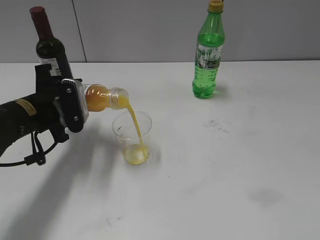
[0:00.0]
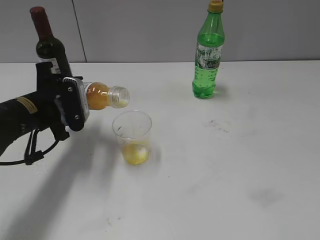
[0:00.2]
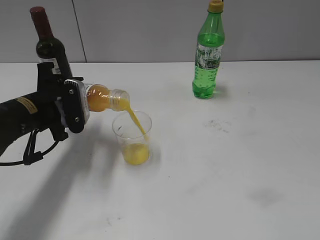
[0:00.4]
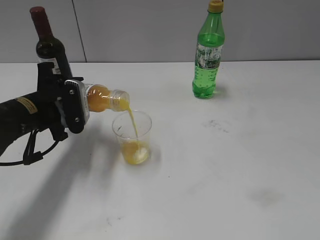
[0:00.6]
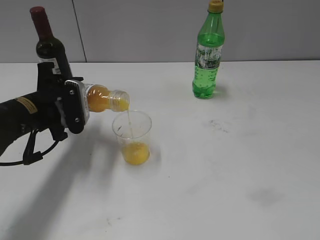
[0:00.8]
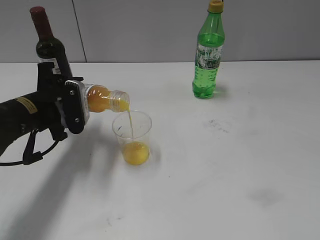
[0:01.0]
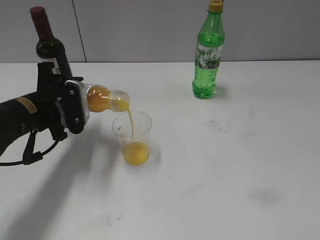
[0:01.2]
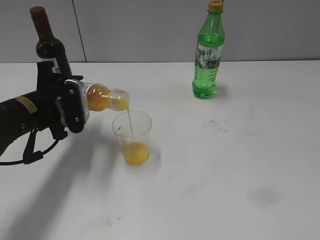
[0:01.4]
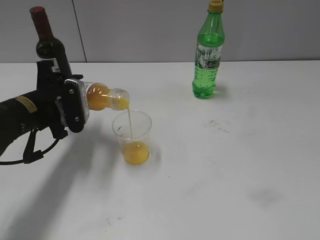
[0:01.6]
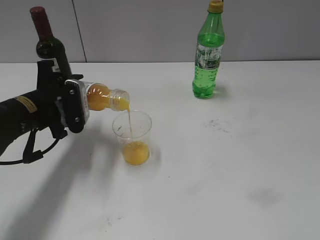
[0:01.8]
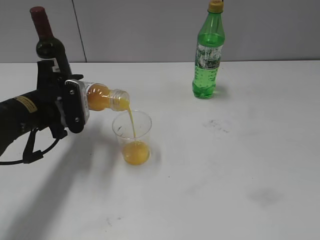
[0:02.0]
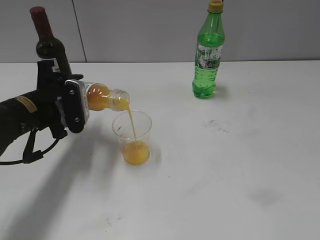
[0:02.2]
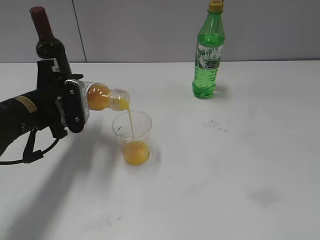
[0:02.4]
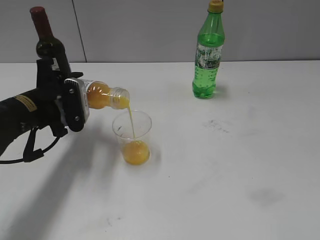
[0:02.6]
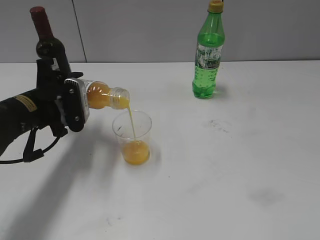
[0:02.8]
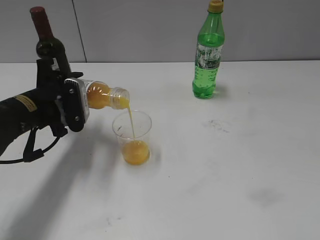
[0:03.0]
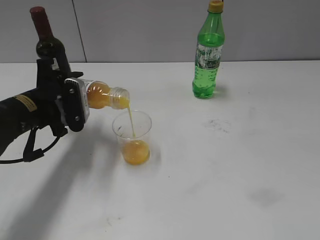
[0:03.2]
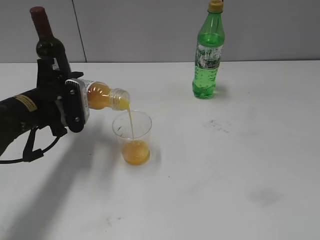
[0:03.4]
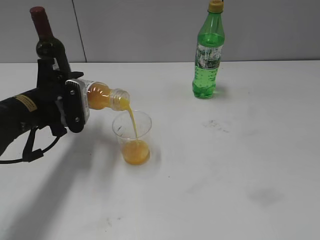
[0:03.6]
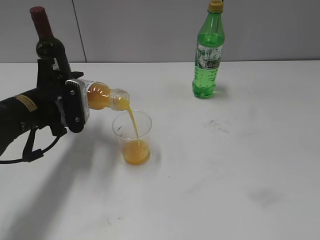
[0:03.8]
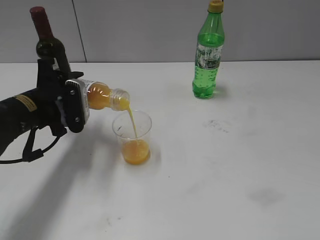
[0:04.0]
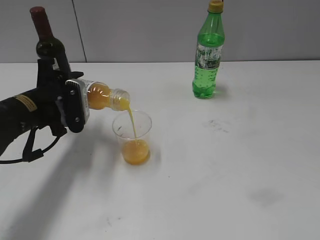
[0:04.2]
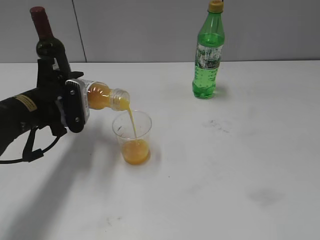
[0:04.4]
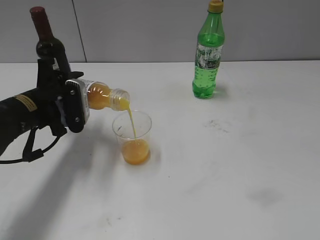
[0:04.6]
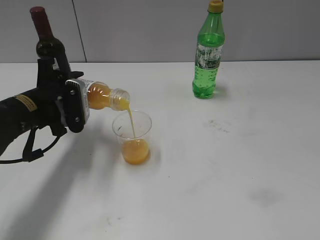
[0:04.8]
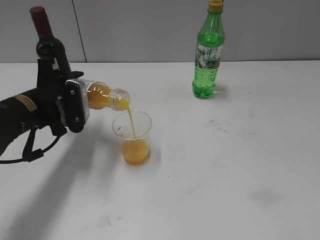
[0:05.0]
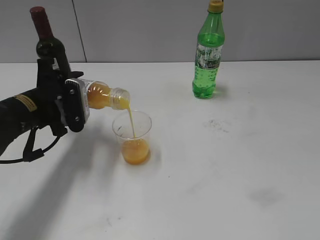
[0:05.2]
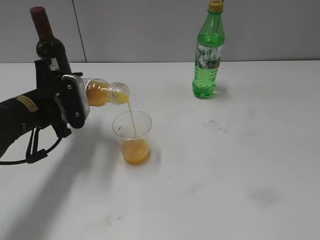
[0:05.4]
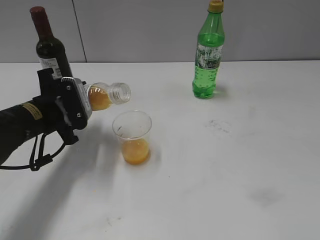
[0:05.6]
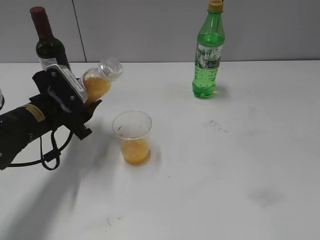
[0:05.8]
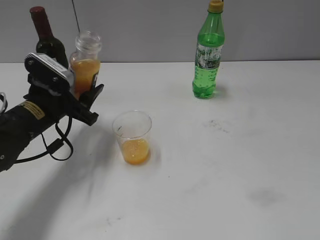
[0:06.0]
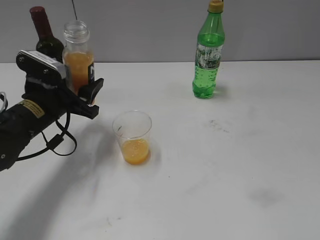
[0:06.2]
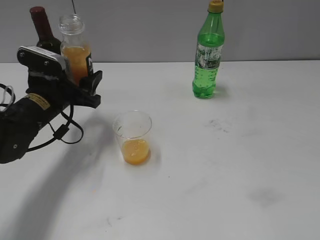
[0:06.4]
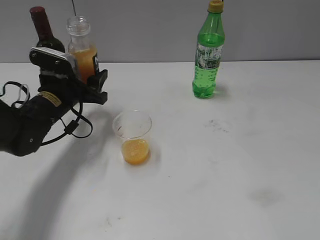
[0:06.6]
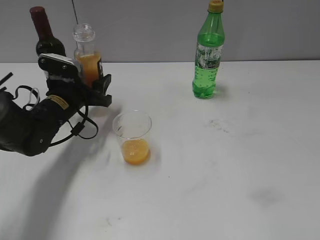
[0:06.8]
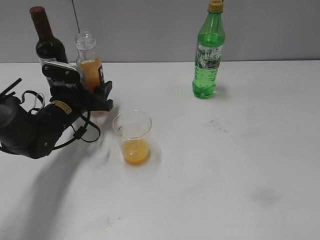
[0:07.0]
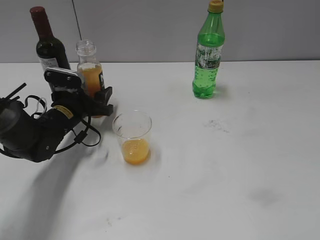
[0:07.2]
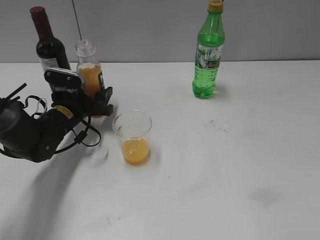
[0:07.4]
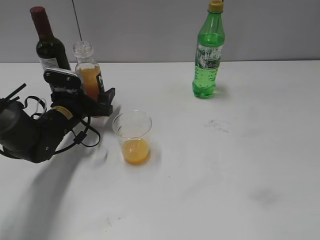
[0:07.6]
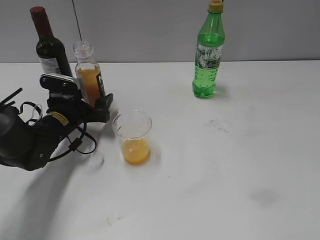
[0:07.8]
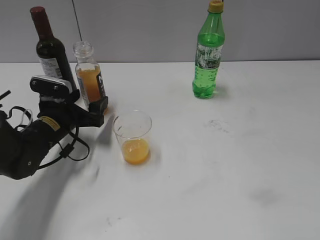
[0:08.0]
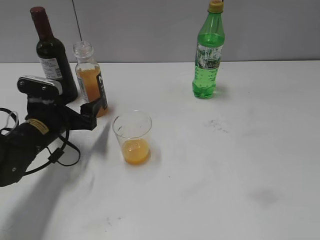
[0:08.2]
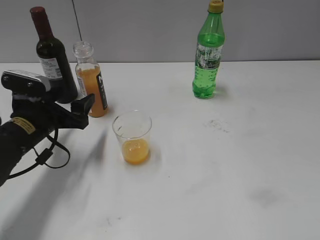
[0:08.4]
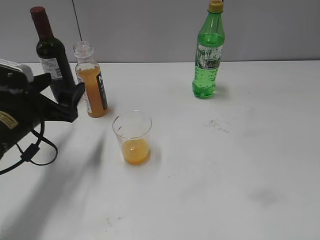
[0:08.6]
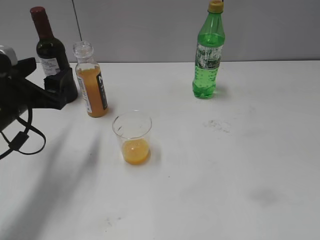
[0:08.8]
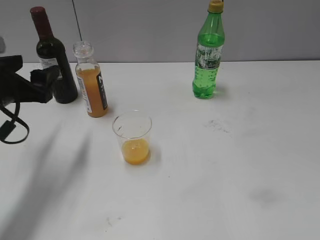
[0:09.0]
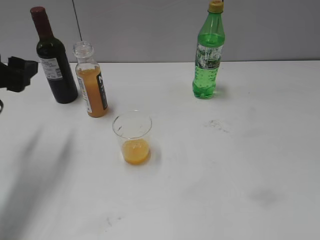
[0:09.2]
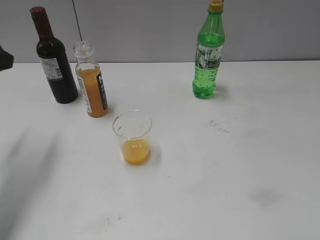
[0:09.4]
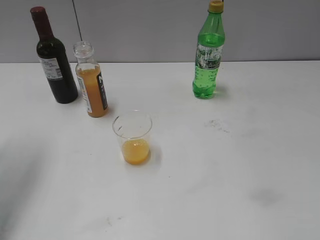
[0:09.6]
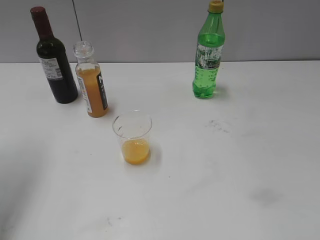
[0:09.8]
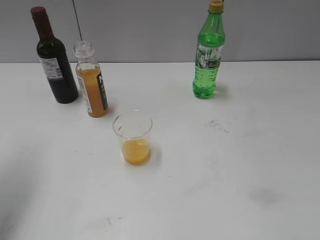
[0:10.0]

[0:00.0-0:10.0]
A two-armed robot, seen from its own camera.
Step, 0.0 to 5.6 s: Pour the orange juice from bottle to cup with left gripper.
Step, 5.8 to 7.4 s: Place the orange juice bottle on the table with left gripper.
0.0 to 1.4 s: The two grippers keep their place.
1.4 to 4.2 s: The two grippers keep their place.
5.8 to 7.2 s: The left gripper moves forward and downward, some 10 cm.
7.2 to 8.6 s: The left gripper travels backward and upward by roughly 15 cm, and opens.
8.6 to 10.0 s: The left gripper moves upward and to the left, roughly 20 cm.

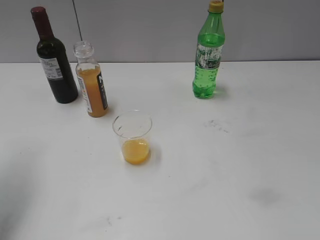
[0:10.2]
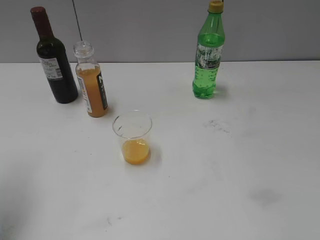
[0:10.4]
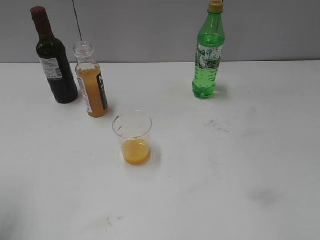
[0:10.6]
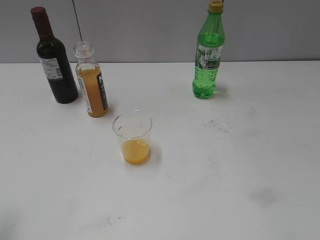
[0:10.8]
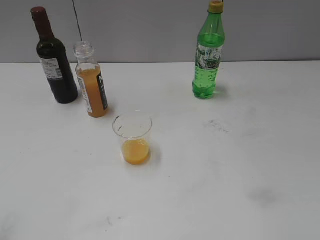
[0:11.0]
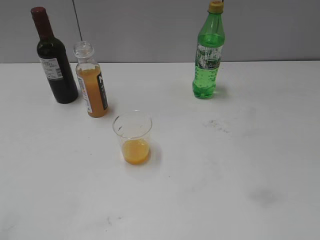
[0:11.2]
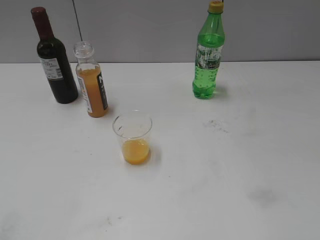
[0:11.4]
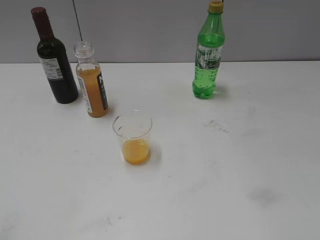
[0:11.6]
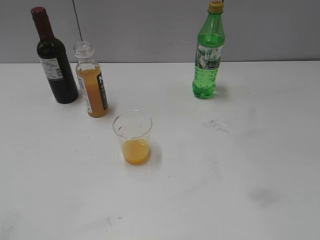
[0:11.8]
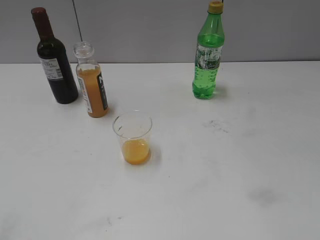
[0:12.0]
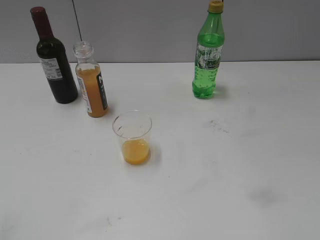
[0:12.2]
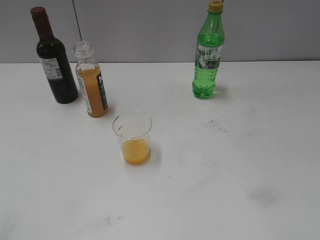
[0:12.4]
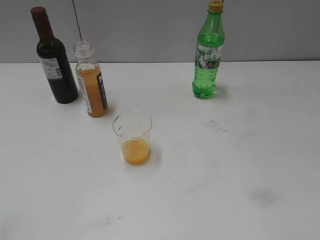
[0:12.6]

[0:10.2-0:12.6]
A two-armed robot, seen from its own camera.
10.2 to 11.4 s: The left gripper is displaced backward by some 20 cm.

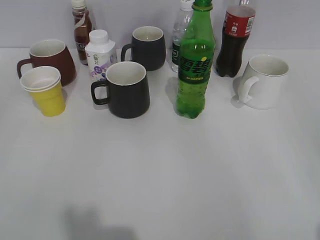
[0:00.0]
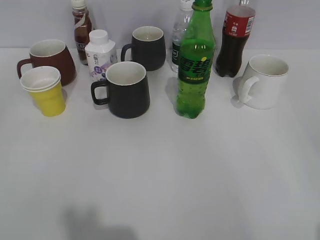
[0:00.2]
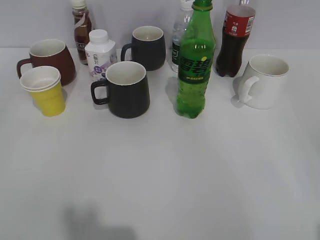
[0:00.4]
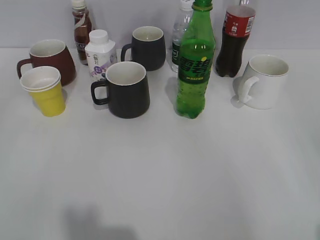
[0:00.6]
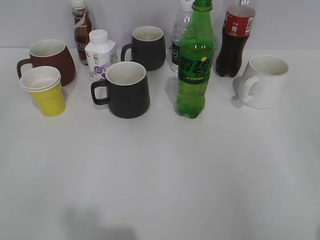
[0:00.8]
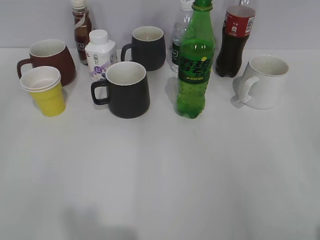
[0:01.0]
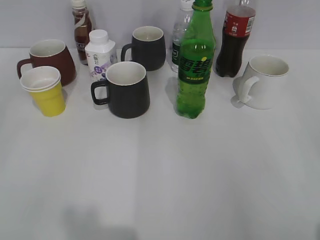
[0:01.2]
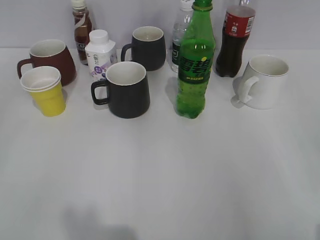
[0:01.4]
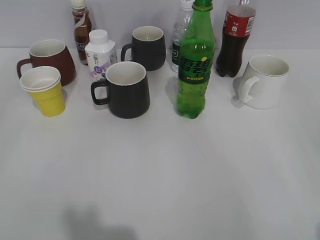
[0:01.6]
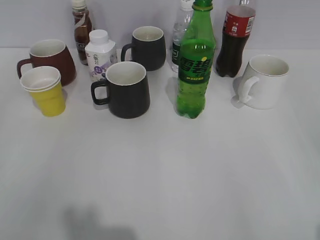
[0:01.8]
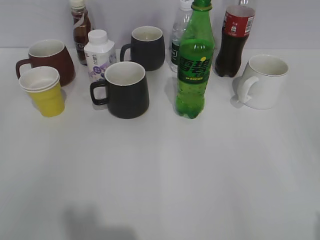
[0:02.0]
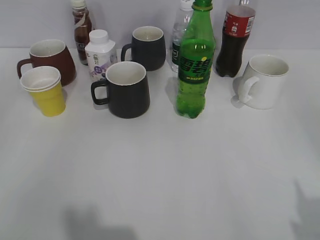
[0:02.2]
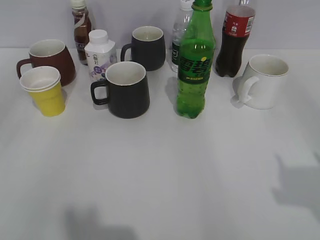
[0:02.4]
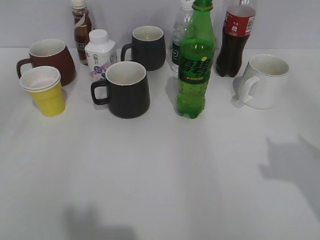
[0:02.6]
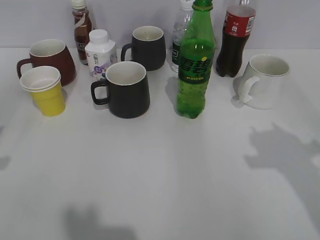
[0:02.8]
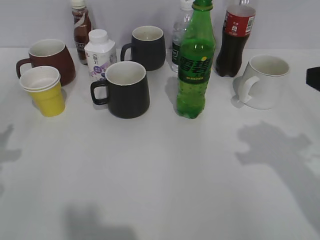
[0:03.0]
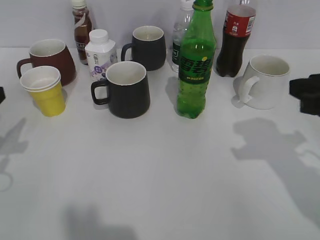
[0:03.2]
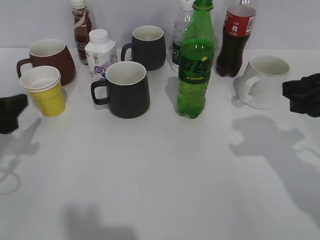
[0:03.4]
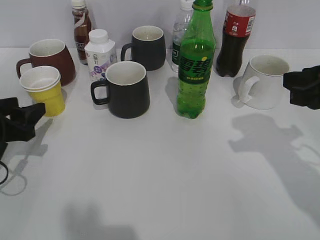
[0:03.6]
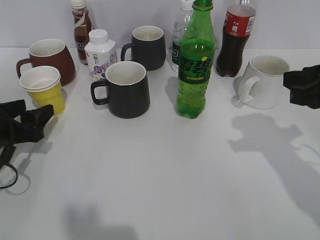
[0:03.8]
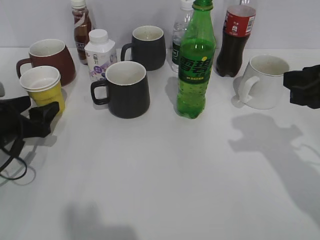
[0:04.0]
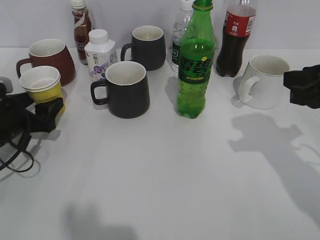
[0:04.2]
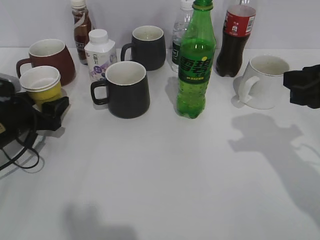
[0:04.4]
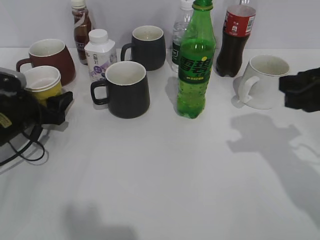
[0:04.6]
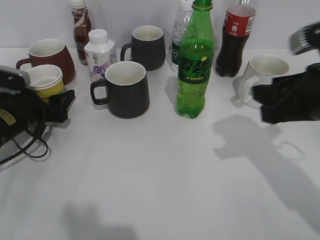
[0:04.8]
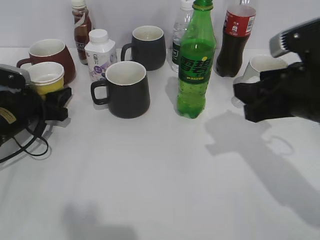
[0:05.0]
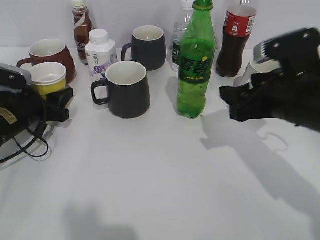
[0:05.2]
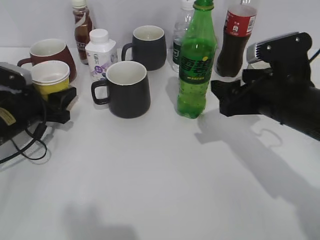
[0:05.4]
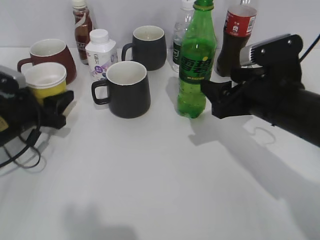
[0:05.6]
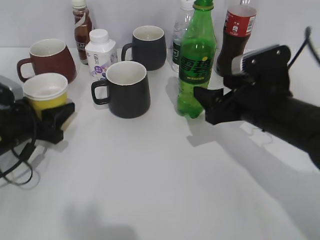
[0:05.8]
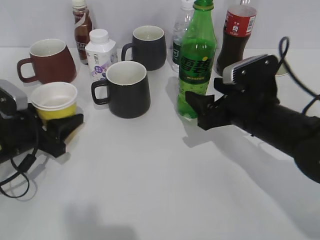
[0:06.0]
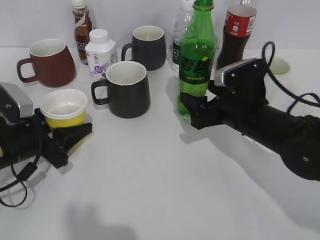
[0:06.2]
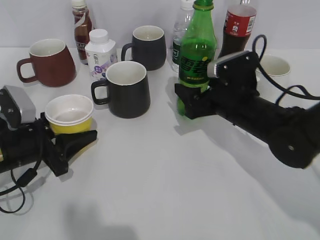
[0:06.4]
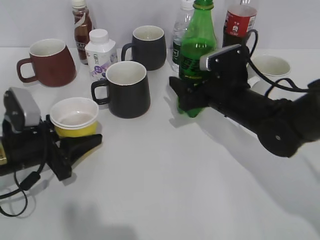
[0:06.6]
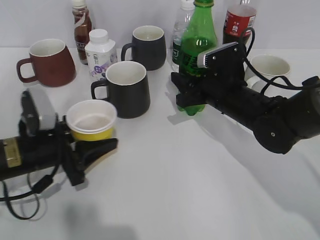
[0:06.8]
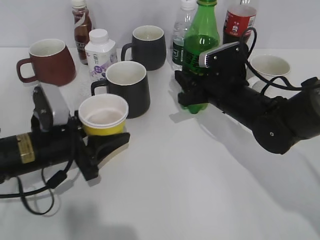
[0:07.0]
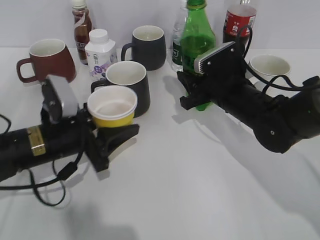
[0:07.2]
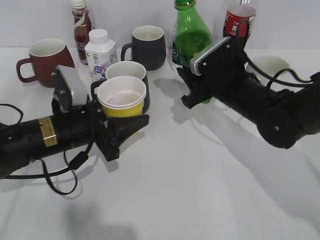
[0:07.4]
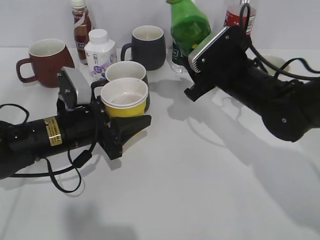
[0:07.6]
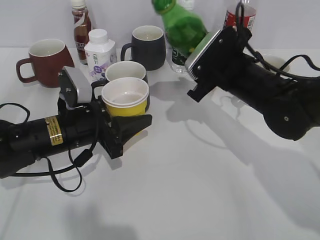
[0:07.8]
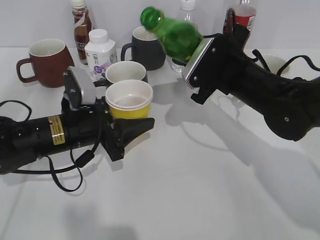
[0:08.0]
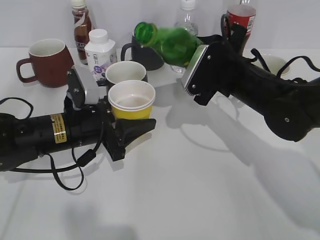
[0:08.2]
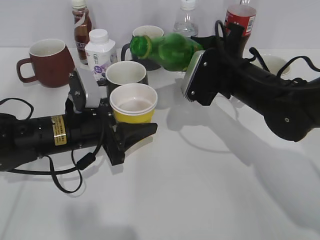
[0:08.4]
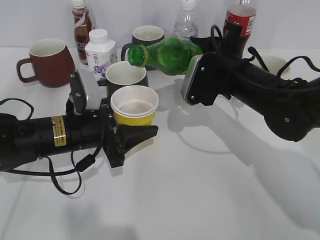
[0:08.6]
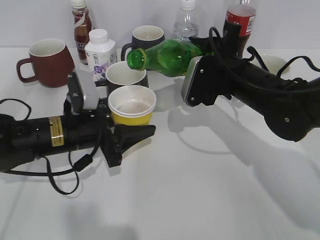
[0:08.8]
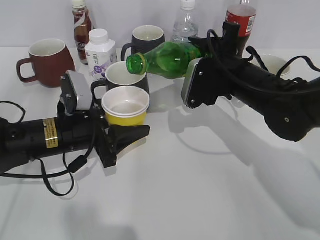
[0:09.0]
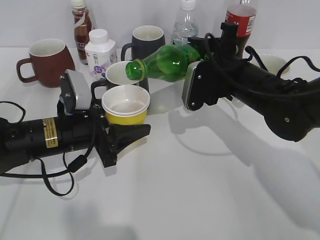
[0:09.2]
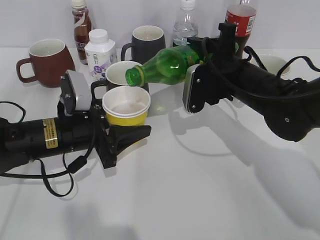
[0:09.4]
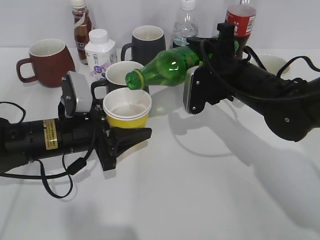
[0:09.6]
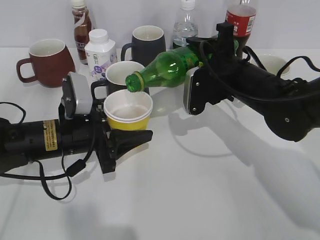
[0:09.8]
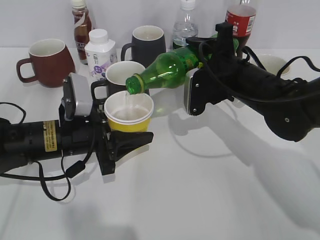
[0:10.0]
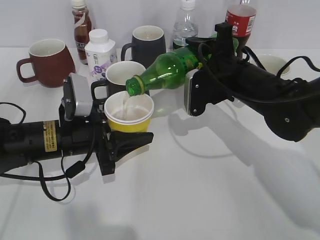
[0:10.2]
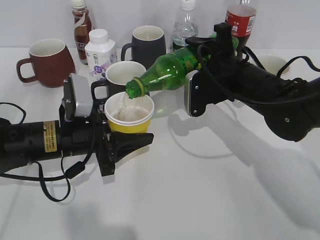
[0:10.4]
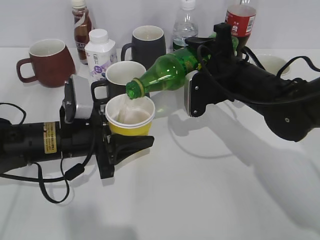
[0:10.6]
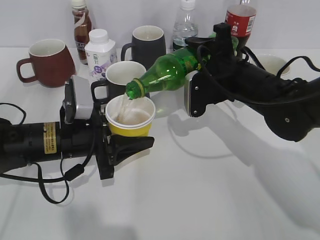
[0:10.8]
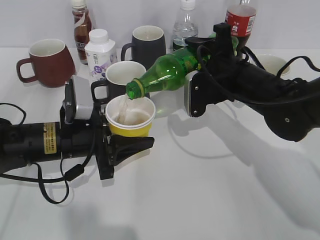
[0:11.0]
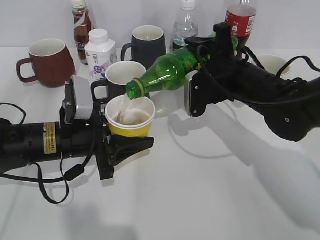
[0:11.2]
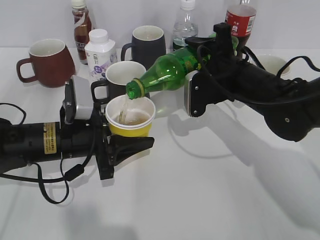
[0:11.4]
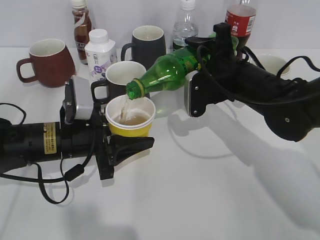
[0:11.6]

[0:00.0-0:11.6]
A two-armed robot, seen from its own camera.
Step, 2.0 to 4.4 s: Grasp the yellow paper cup with left gripper.
Step, 4.6 to 6.8 s: Grasp the bottle with sprite with right gripper.
1.4 to 2.8 s: Both grippers travel together forward, some 15 cm. The right gripper closes its fingers.
2.8 to 4.4 s: The right gripper is displaced forward and downward by roughly 10 cm, and closes, while the left gripper moves forward and downward, approximately 25 cm, and opens up.
4.4 to 5.8 s: The right gripper is displaced downward, to the left and forward by roughly 10 cm, and opens. Meanwhile the left gripper closes its fingers.
5.8 to 7.2 s: The left gripper shifts roughly 10 cm to the right. The right gripper moves forward, about 5 cm, and closes.
8.8 to 10.2 s: The grippers make only small movements.
10.2 to 11.6 s: The two grippers keep their place.
